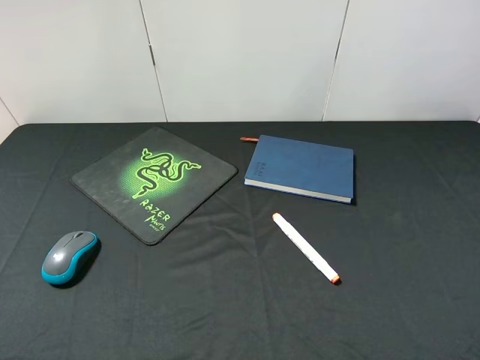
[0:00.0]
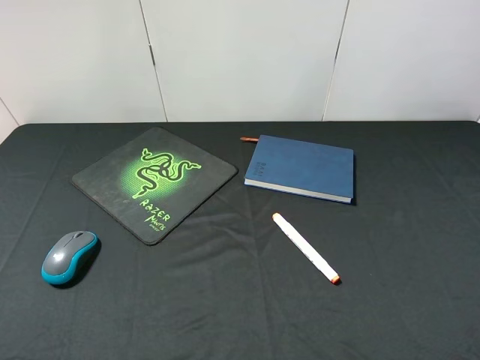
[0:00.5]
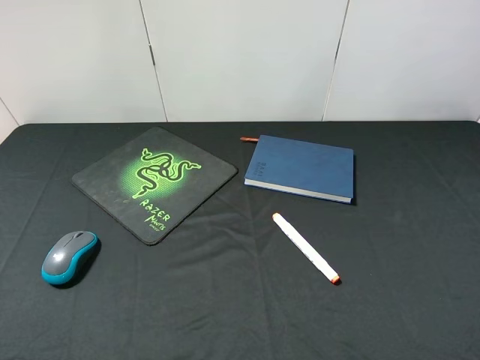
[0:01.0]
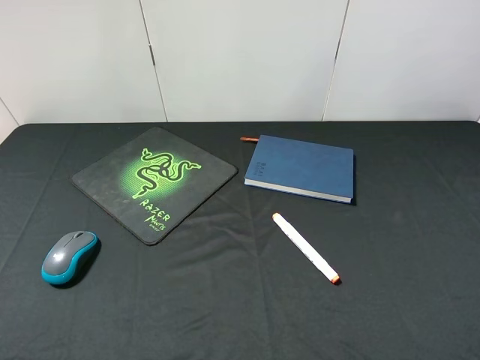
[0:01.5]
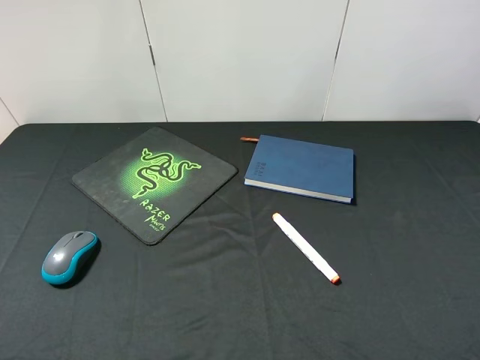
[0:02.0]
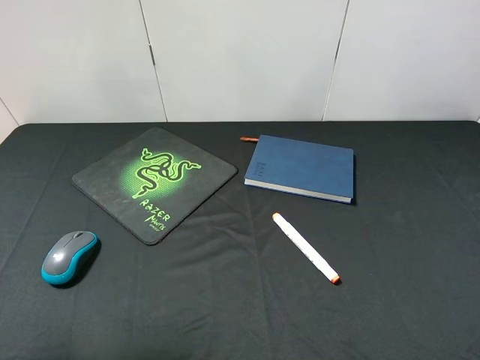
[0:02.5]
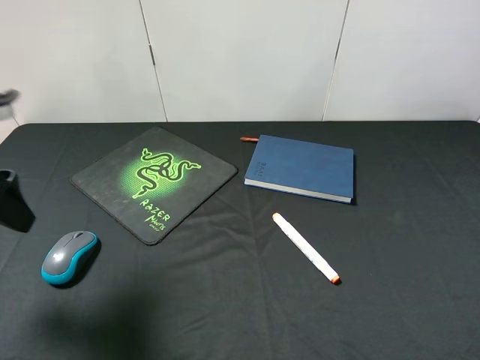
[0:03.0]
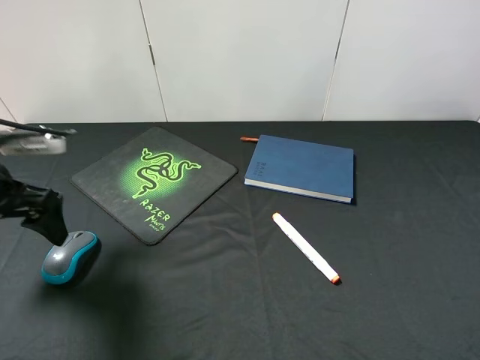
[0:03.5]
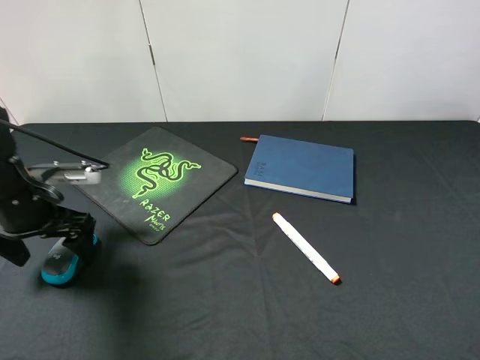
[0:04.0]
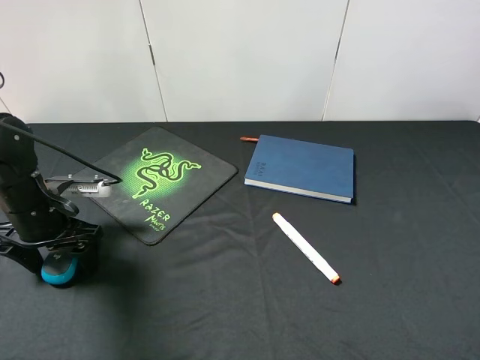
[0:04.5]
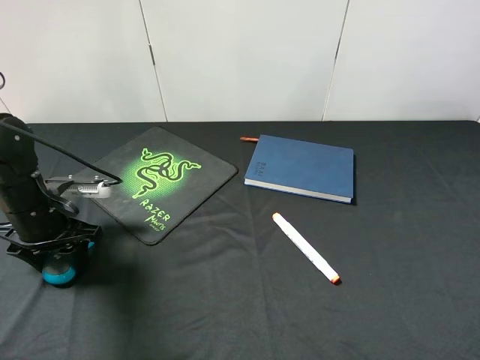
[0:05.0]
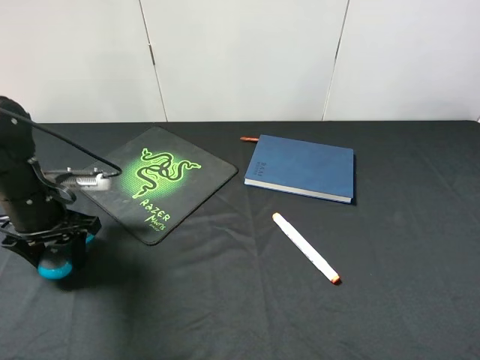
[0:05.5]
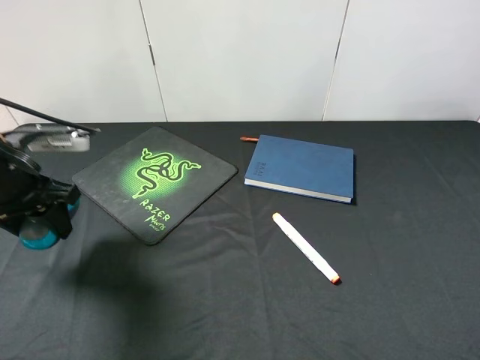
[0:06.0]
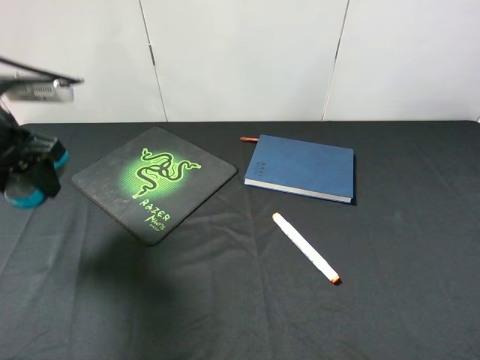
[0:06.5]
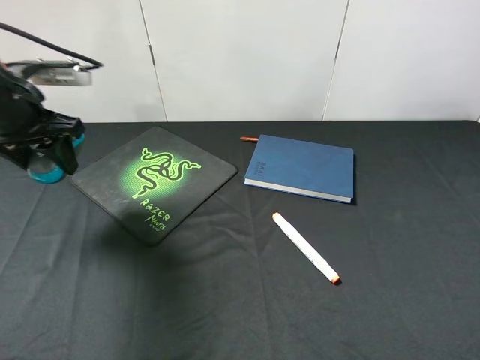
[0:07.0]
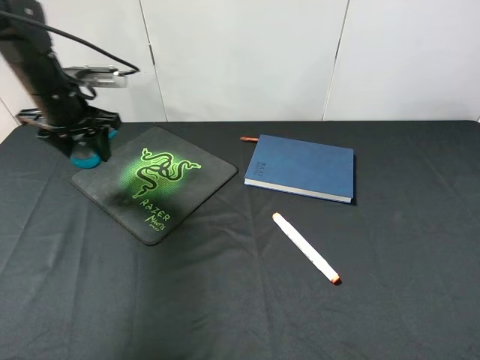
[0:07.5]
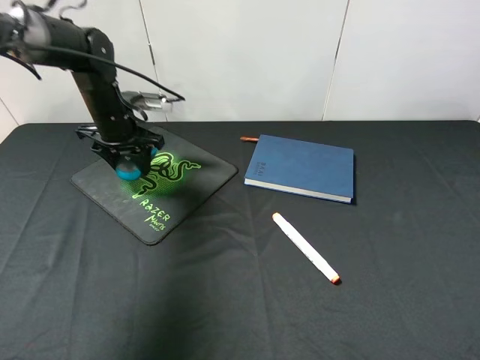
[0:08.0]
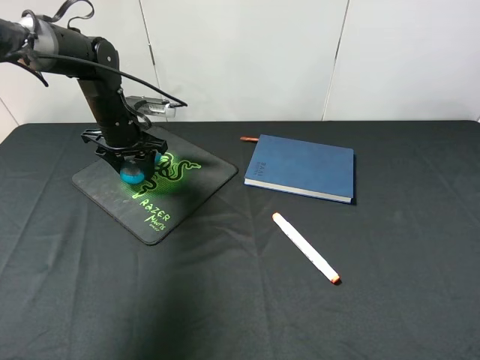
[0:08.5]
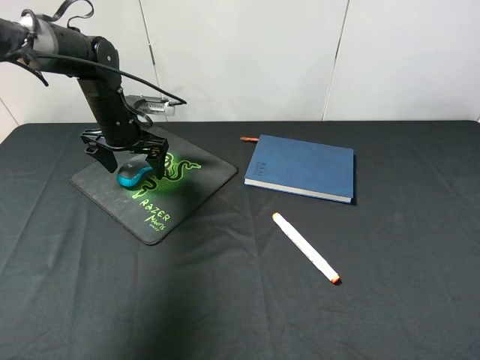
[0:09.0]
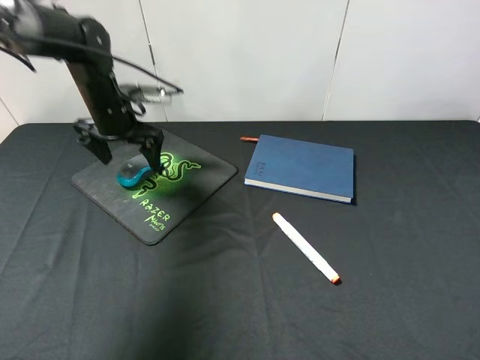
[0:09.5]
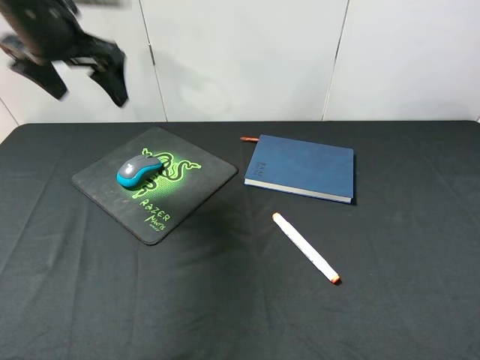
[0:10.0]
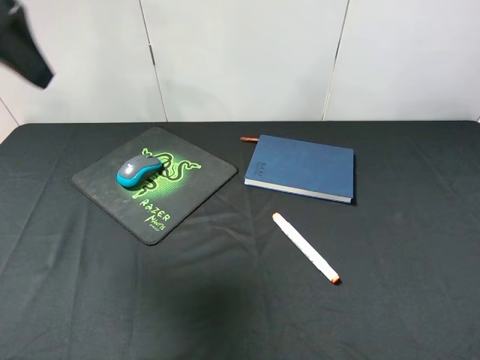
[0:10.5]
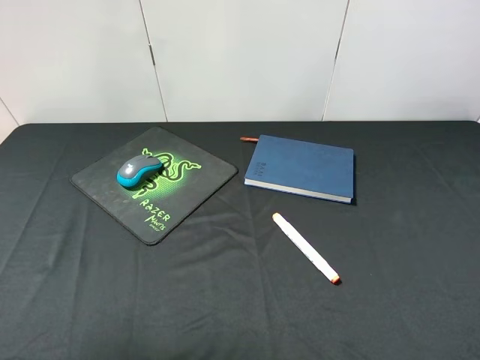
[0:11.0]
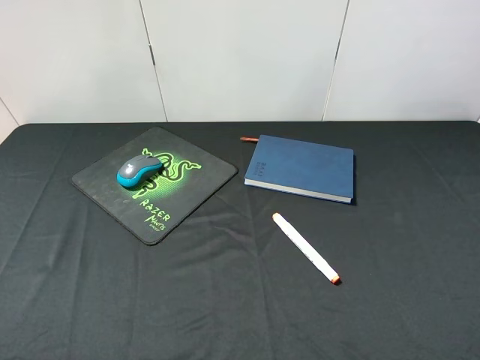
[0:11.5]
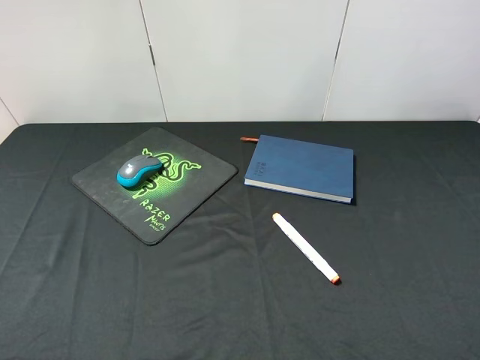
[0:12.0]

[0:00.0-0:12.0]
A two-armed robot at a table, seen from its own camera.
Step, 0:00.0 to 0:05.5: Pick up the mouse with left gripper.
Step, 0:06.0 to 0:09.0: Place the mouse on the mouse pad with left gripper.
0:00.0 to 0:02.0: Both grippers stay put.
0:02.0 to 0:04.0: The left gripper goes about 30 cm forward and downward.
0:04.0 to 0:06.0: The left gripper moves upward, roughly 5 cm, and closes up.
0:06.0 to 0:08.0: The left gripper heads forward, covering about 20 cm.
0:08.0 to 0:10.0: The left gripper travels upward by some 15 cm, and opens up.
0:10.0 to 0:12.0: The left gripper shifts about 35 cm backward.

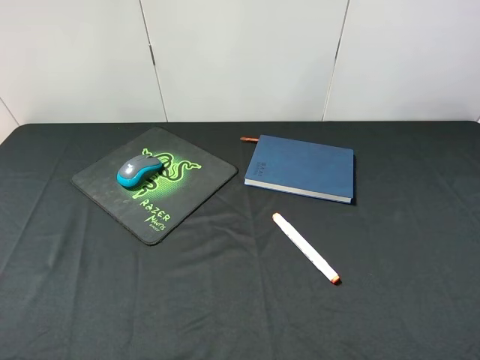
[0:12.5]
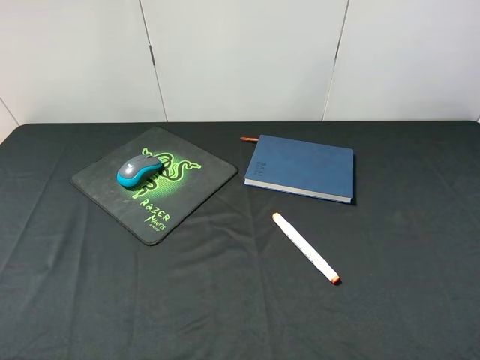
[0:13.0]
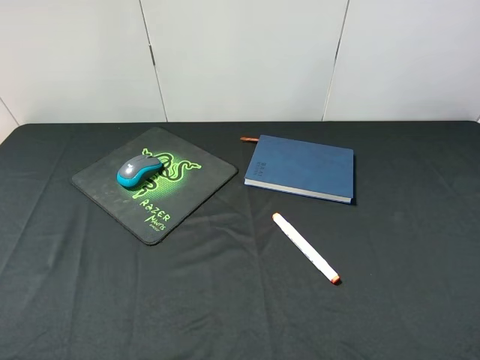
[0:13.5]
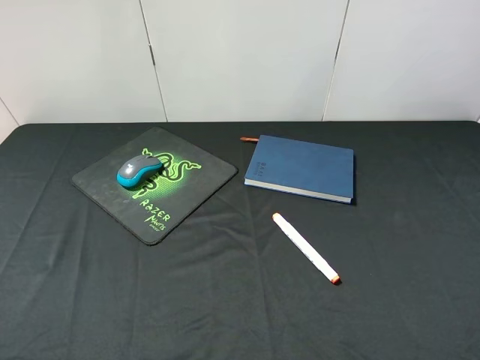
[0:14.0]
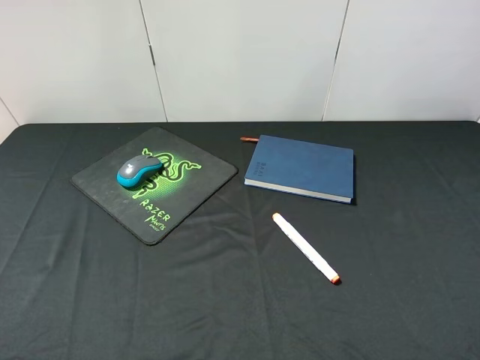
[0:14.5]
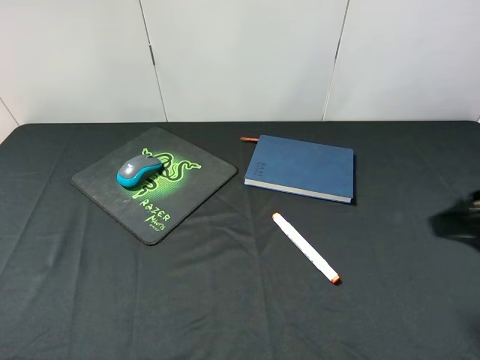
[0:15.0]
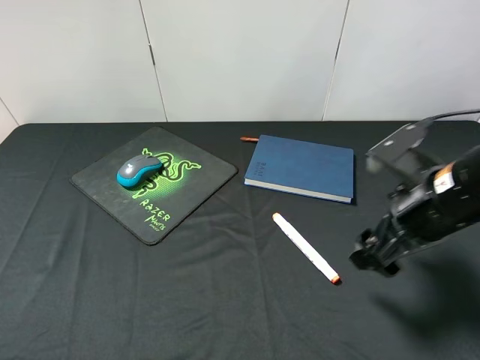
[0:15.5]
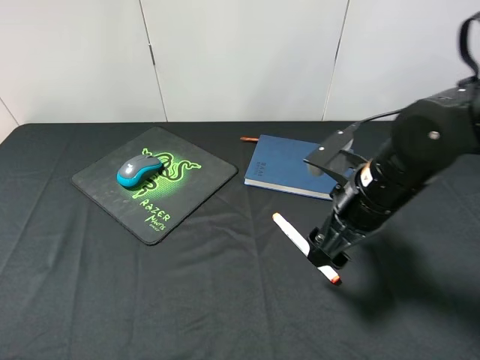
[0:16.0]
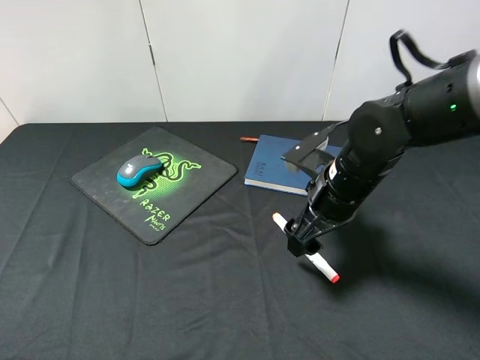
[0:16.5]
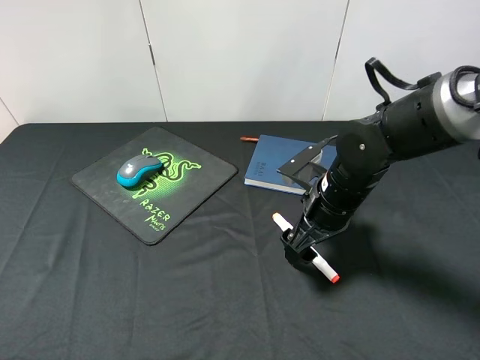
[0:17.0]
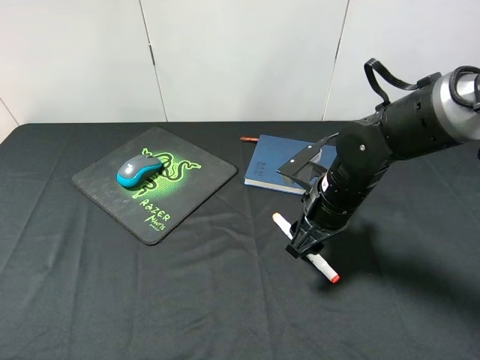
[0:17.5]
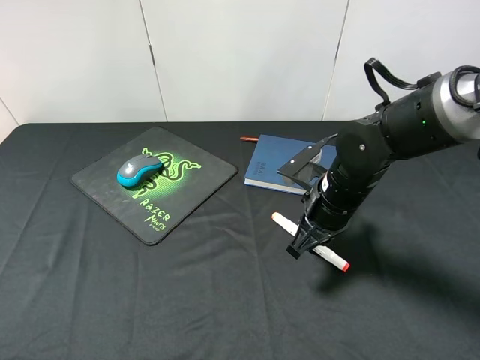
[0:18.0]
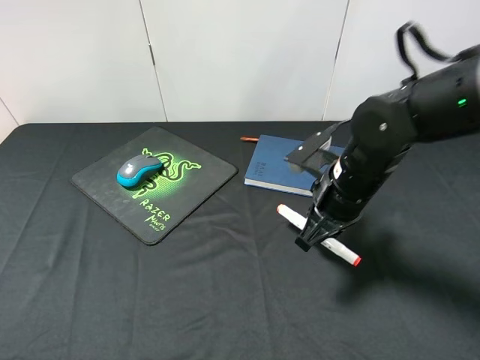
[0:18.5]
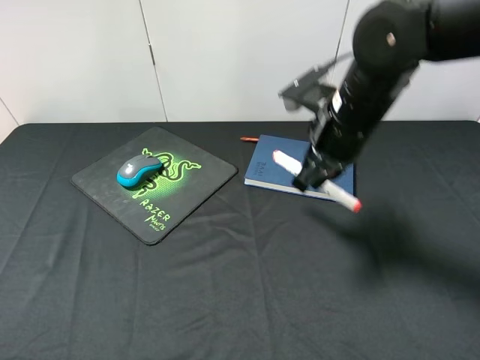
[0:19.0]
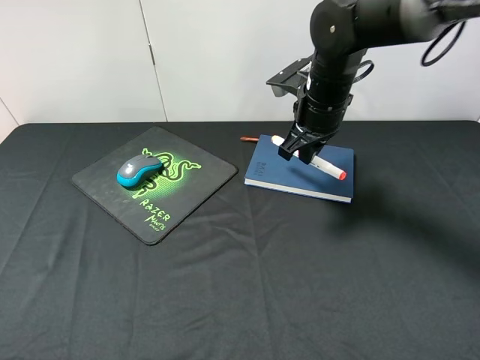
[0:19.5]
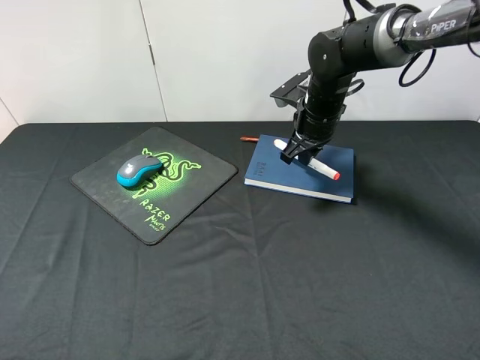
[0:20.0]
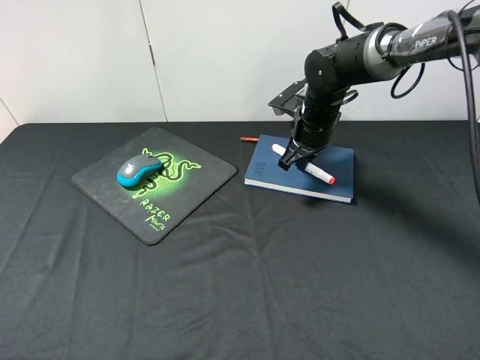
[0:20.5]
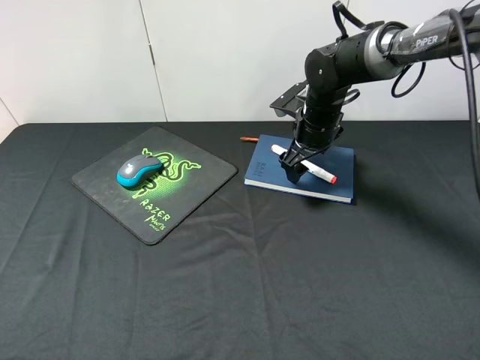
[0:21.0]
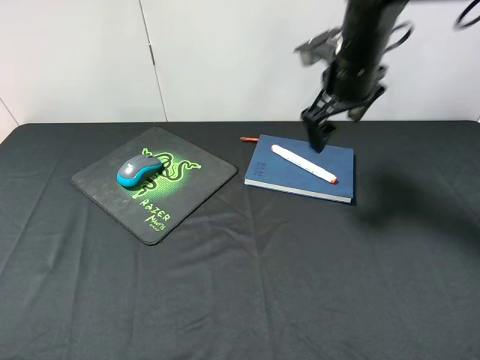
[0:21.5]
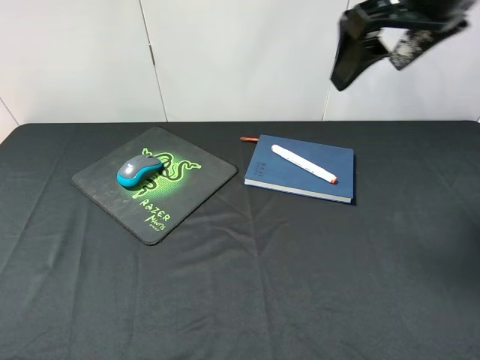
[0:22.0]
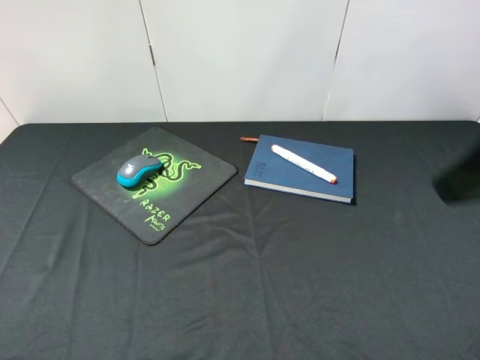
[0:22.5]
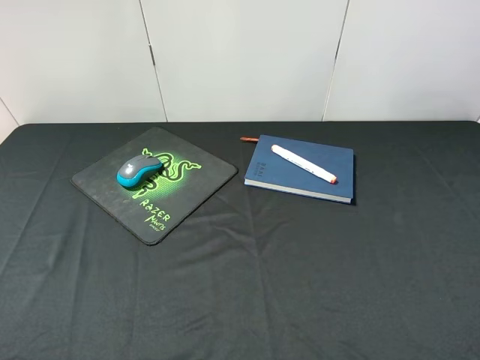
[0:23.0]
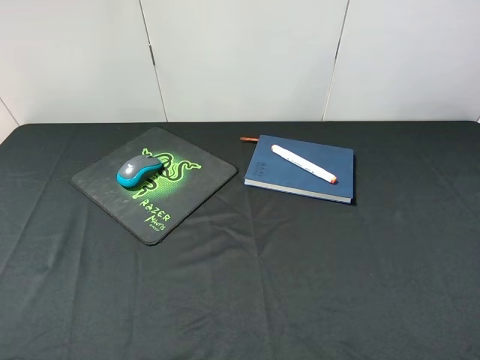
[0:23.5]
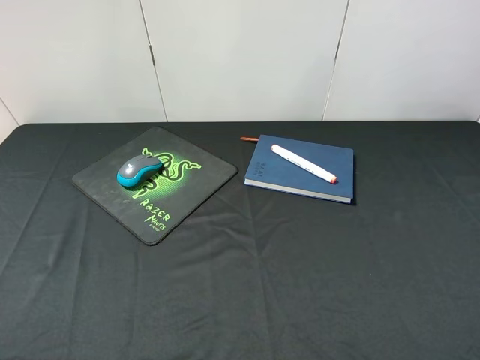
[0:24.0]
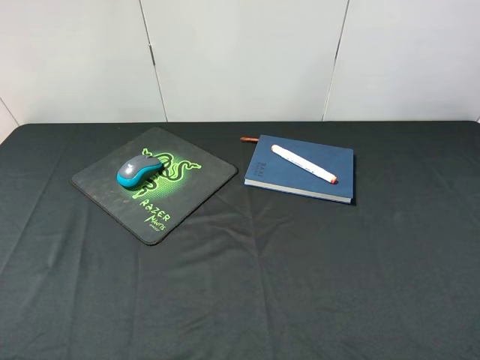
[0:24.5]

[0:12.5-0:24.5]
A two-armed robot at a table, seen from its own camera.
Step, 0:12.5 to 0:18.5: Pick up the marker pen with right gripper.
Step, 0:19.0 to 0:21.0: Place the marker pen on the notebook with right gripper.
0:14.5 to 0:16.5: The right gripper heads forward, to the left and downward, covering some 30 cm.
0:16.5 to 0:18.5: The right gripper closes.
0:18.5 to 0:20.5: The right gripper moves forward, some 15 cm.
0:20.5 to 0:22.5: The right gripper shifts about 35 cm backward and upward, and opens up.
0:22.5 to 0:24.5: The right gripper moves backward, downward and to the right, some 15 cm.
